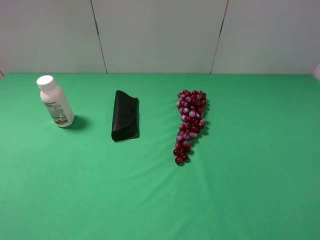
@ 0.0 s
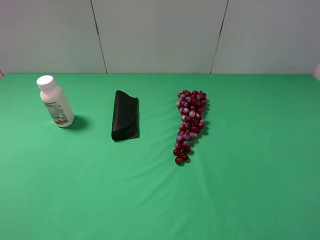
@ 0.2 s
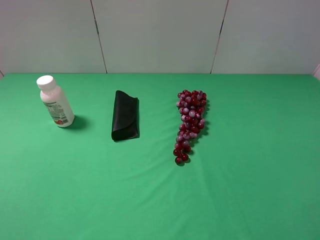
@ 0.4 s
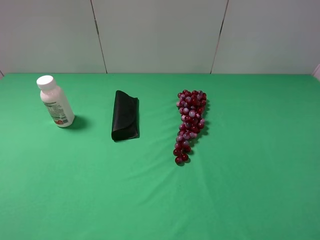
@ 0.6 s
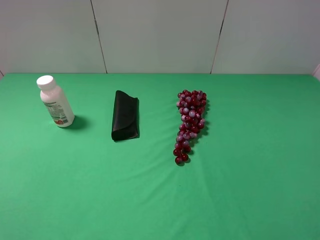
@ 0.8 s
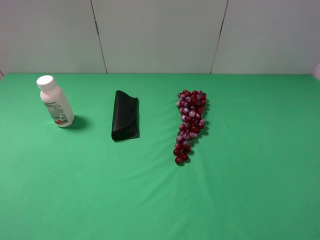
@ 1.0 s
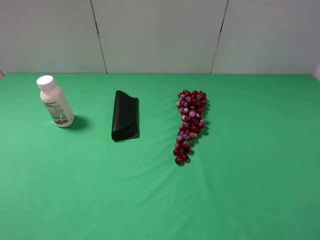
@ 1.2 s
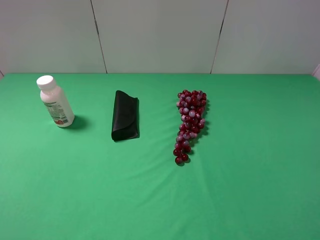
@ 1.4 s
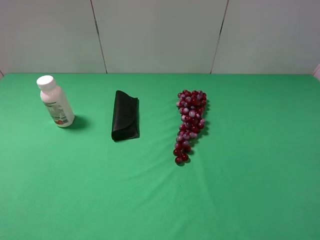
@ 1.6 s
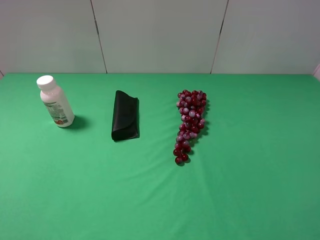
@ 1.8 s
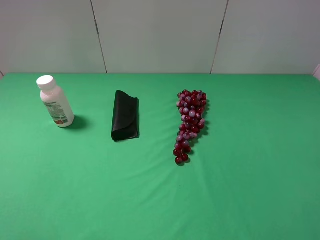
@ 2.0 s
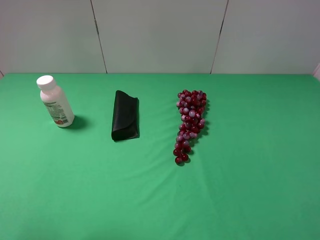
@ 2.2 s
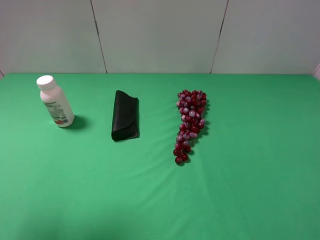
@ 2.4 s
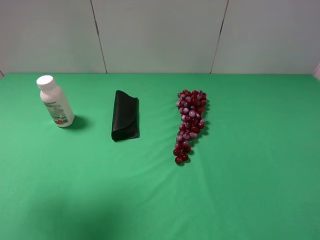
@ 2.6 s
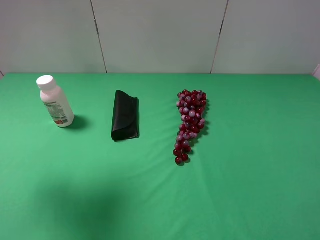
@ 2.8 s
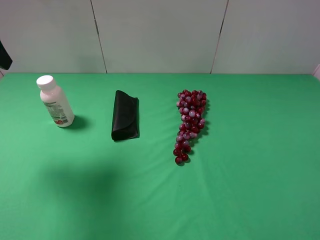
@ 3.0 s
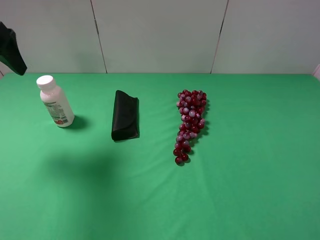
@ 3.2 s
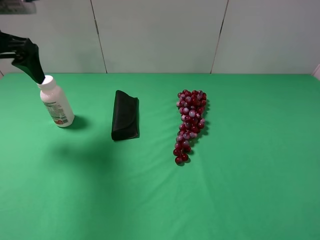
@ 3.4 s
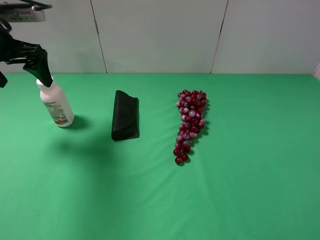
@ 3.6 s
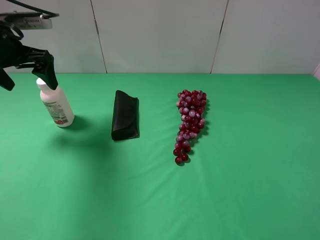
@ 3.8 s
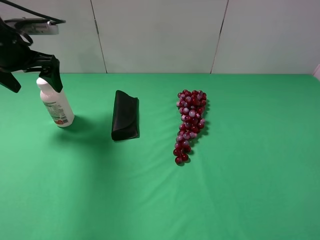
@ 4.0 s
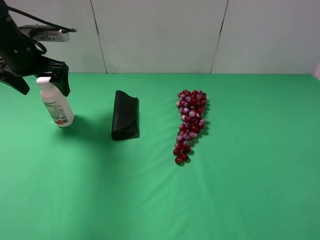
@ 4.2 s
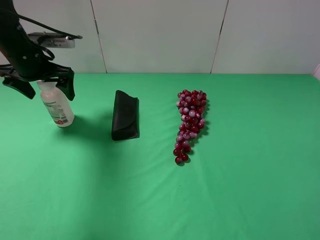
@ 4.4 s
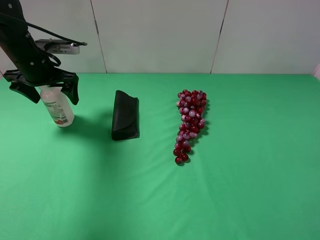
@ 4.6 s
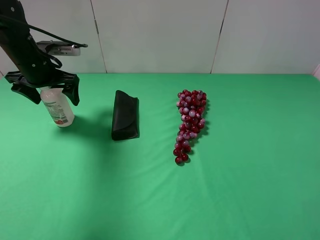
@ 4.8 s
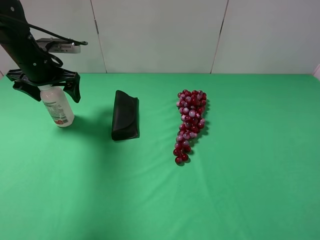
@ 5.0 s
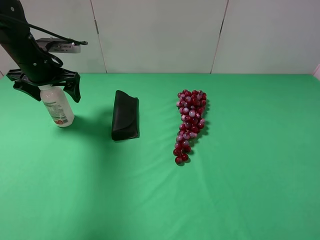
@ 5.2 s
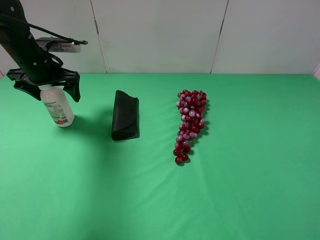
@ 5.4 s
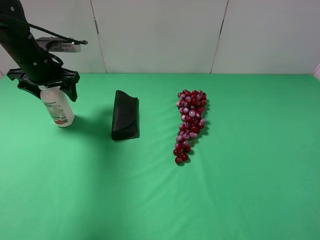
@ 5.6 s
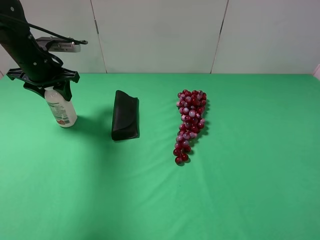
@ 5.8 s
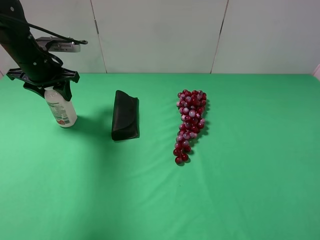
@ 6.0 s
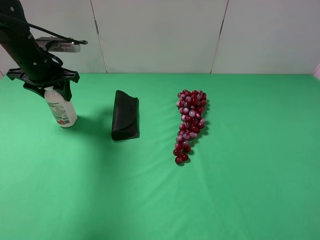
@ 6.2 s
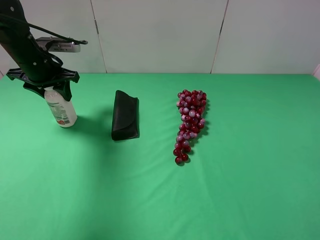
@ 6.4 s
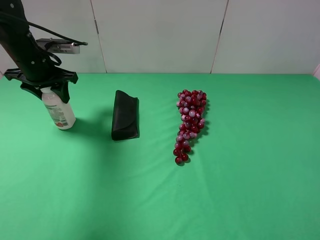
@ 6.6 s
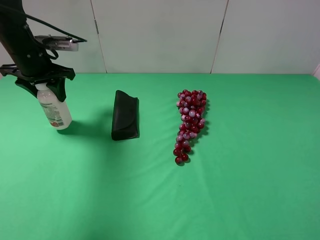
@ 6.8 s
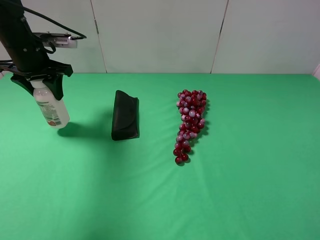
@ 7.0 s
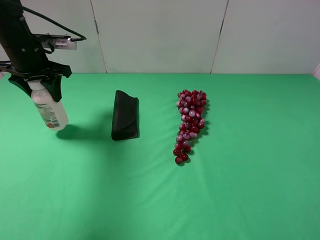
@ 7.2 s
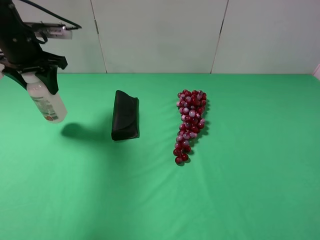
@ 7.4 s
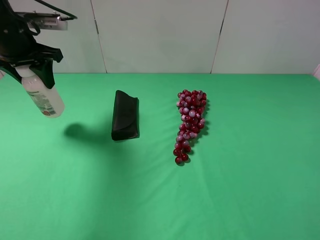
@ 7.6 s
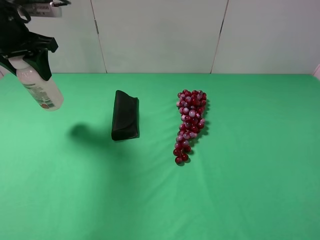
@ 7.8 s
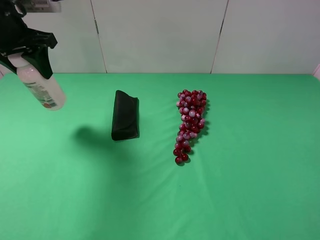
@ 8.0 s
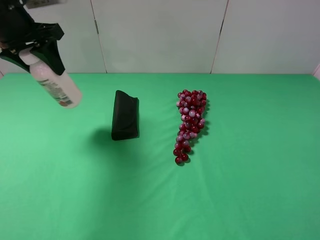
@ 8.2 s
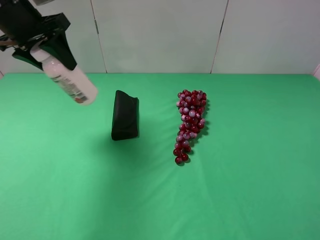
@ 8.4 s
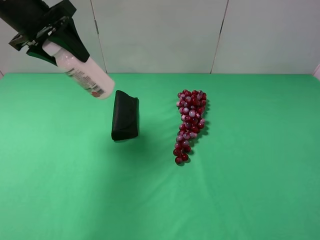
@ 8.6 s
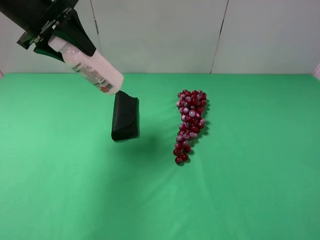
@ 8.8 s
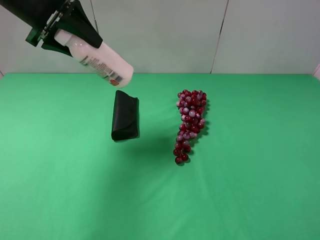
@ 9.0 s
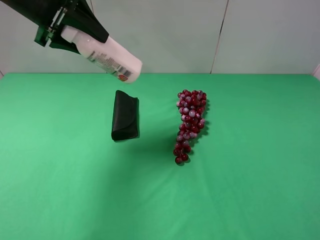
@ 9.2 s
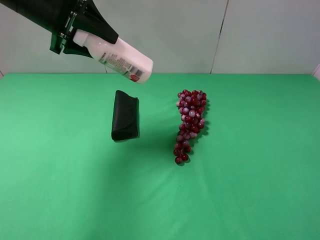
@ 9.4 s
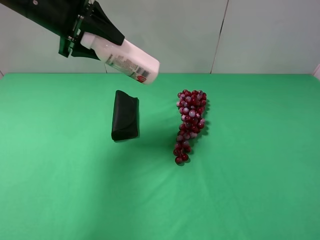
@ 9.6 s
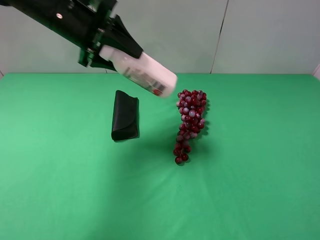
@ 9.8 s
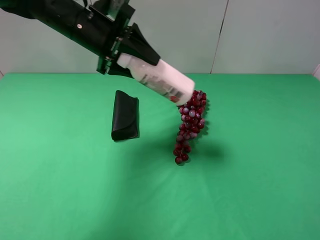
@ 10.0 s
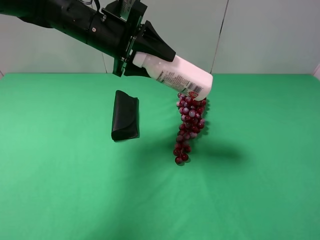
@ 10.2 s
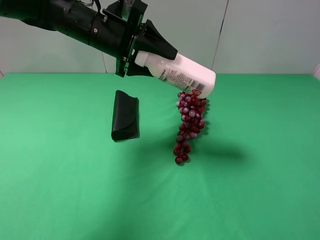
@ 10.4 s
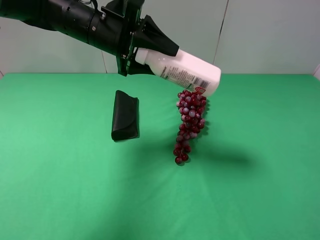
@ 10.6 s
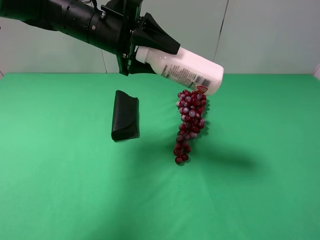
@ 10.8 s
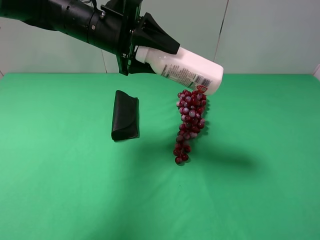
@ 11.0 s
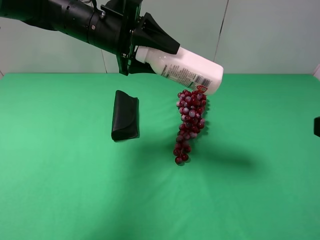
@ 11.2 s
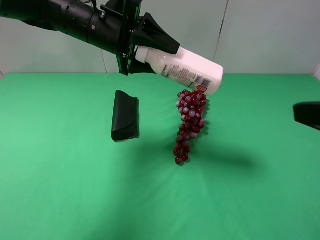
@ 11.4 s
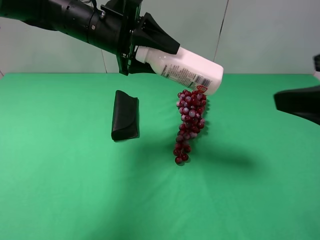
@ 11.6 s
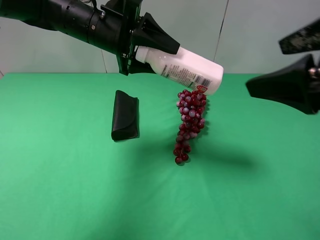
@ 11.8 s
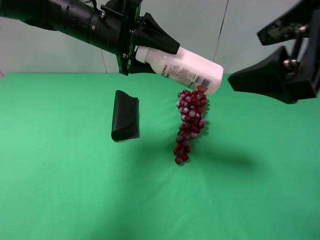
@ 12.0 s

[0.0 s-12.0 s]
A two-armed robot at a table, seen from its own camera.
Task of the whole recording: use the left gripper to pick up the item and transfer it from the left gripper to the right gripper.
Step, 0.0 to 5.6 s: Use the left gripper to grab the milk on the left side of the table.
0.0 to 1.6 s: Both grippers stay put.
1.6 to 3.0 s: The left gripper shifts about 25 cm forward.
3.0 to 4.4 s: The left gripper heads downward and forward, covering some 15 cm.
4.4 to 6.0 s: The left gripper closes.
6.0 to 7.6 s: The left gripper is displaced upward by about 5 cm.
7.6 to 9.0 s: The left gripper goes some 5 cm to the right and upward.
9.0 to 10.4 s: The left gripper is displaced to the right and downward by some 15 cm.
10.4 to 12.0 s: The right gripper moves forward, to the left and upward, about 20 cm.

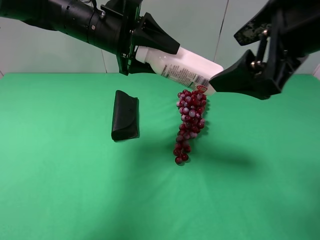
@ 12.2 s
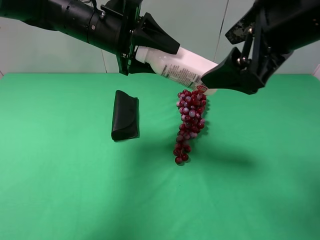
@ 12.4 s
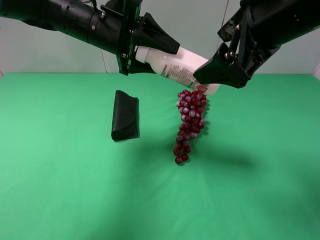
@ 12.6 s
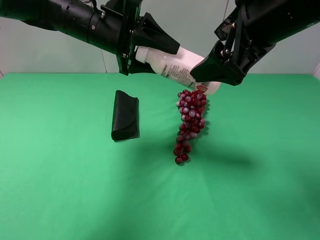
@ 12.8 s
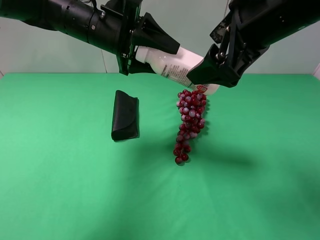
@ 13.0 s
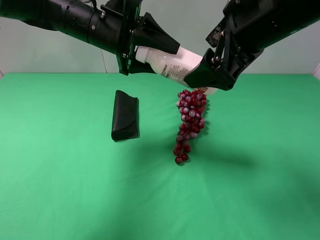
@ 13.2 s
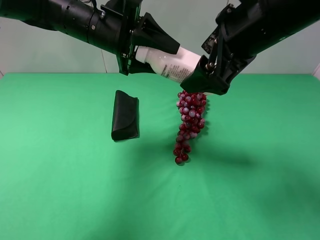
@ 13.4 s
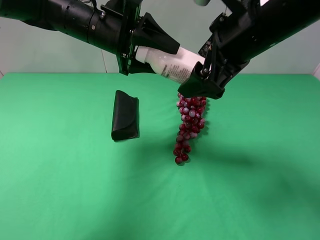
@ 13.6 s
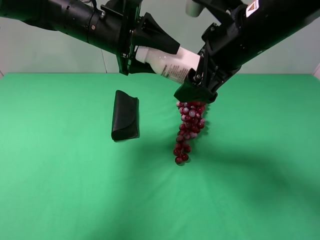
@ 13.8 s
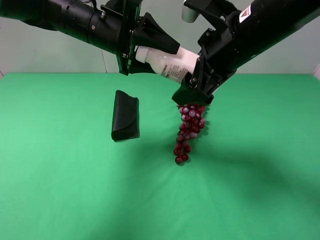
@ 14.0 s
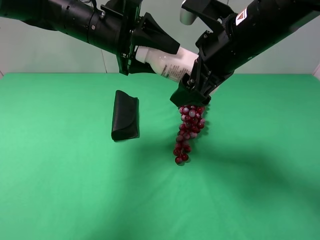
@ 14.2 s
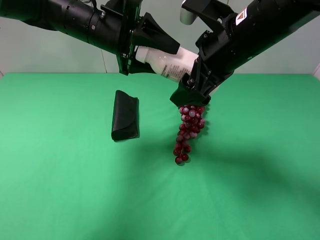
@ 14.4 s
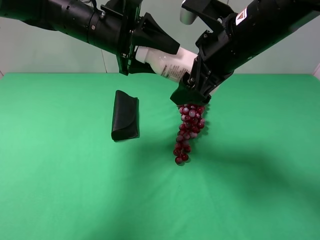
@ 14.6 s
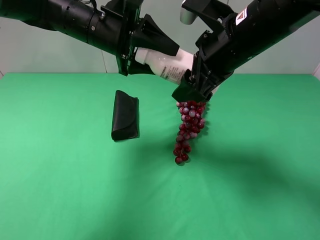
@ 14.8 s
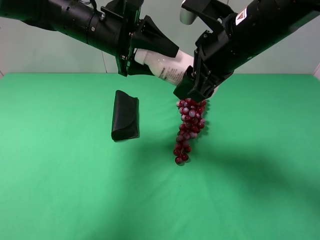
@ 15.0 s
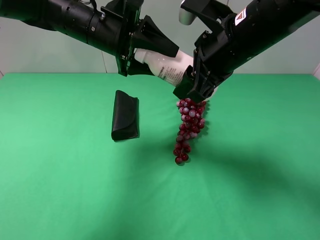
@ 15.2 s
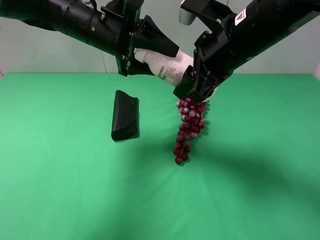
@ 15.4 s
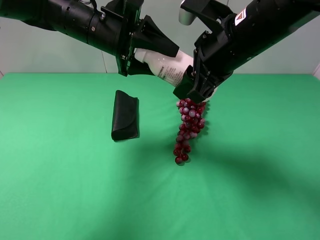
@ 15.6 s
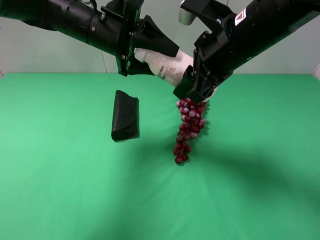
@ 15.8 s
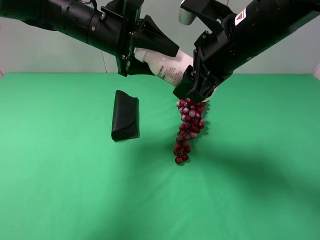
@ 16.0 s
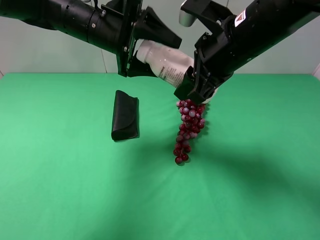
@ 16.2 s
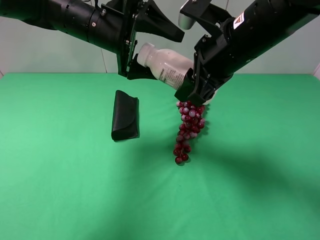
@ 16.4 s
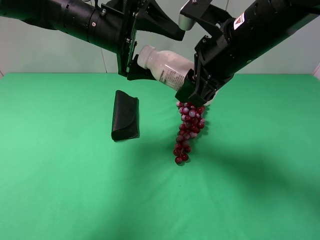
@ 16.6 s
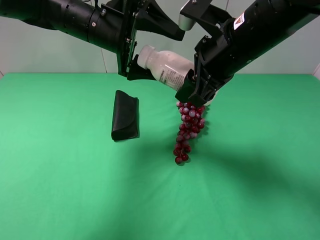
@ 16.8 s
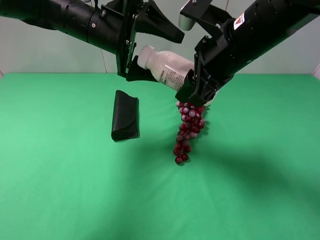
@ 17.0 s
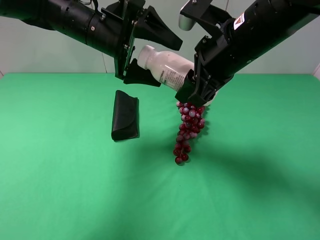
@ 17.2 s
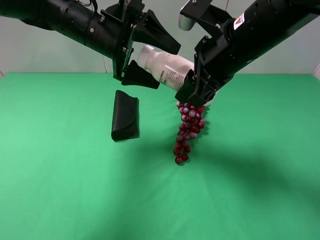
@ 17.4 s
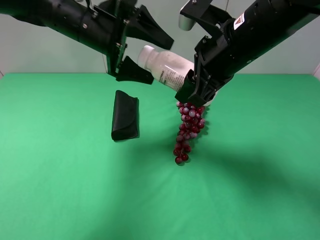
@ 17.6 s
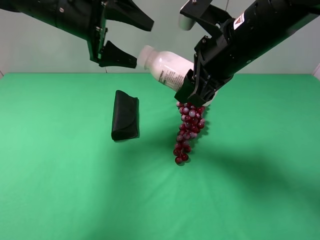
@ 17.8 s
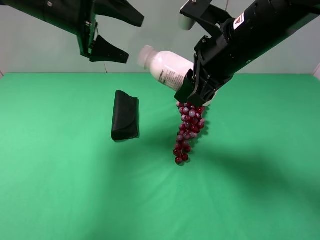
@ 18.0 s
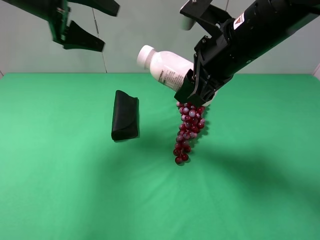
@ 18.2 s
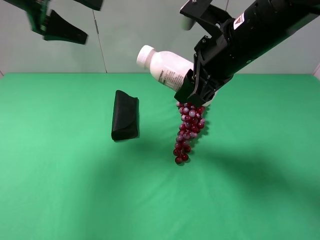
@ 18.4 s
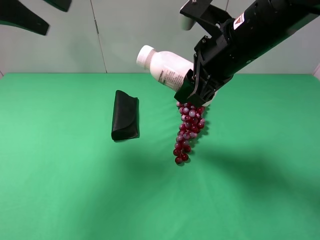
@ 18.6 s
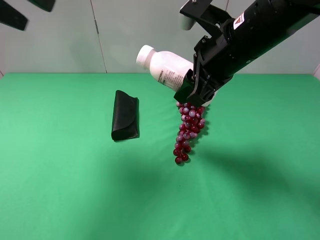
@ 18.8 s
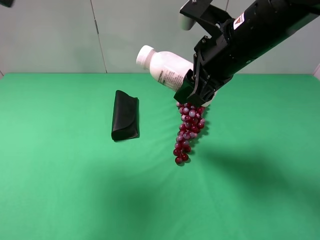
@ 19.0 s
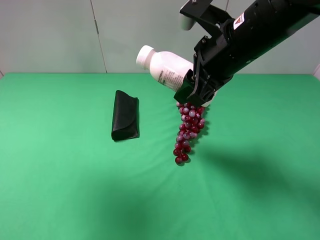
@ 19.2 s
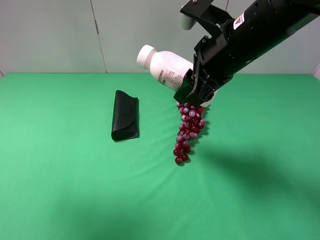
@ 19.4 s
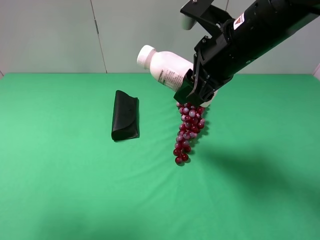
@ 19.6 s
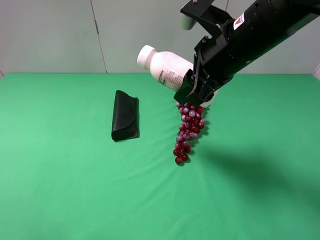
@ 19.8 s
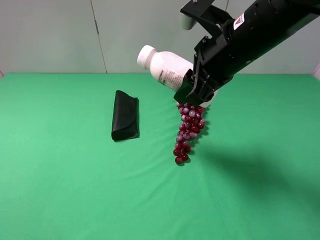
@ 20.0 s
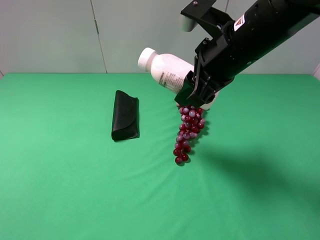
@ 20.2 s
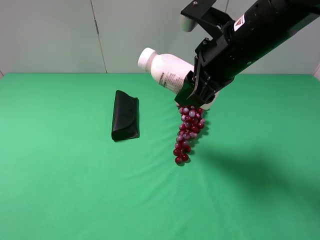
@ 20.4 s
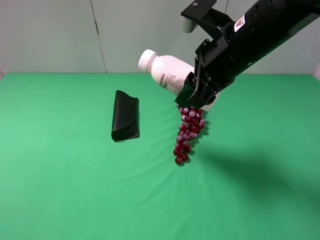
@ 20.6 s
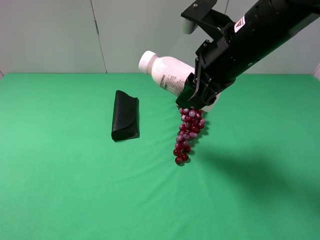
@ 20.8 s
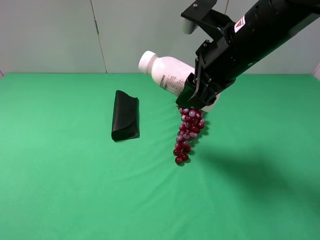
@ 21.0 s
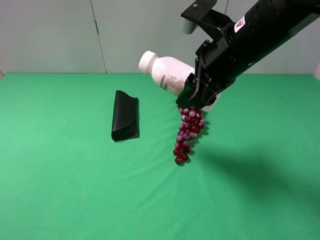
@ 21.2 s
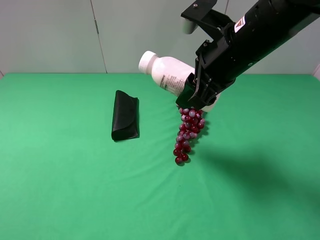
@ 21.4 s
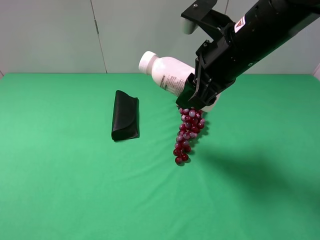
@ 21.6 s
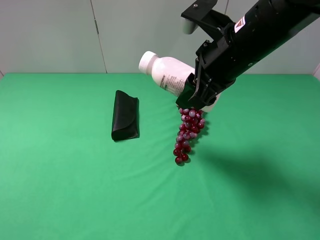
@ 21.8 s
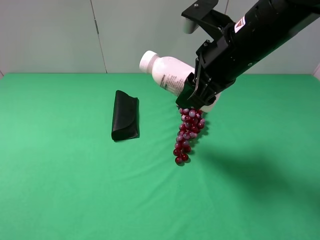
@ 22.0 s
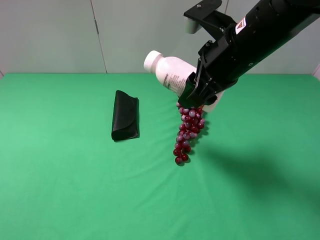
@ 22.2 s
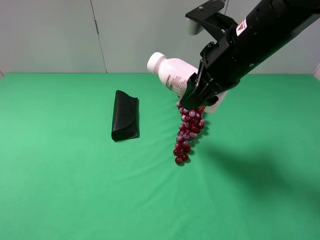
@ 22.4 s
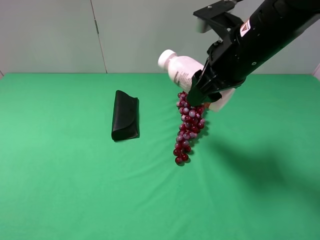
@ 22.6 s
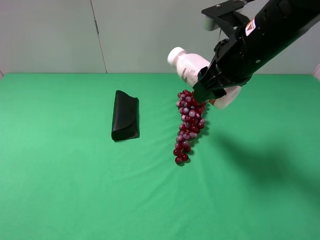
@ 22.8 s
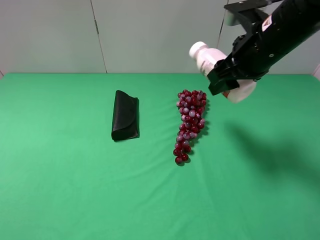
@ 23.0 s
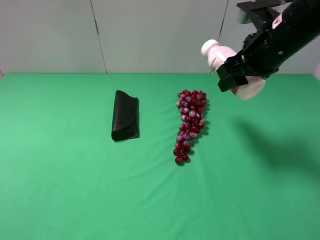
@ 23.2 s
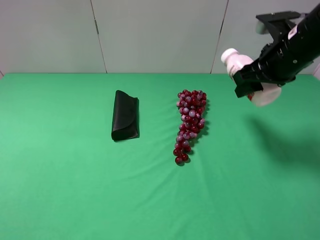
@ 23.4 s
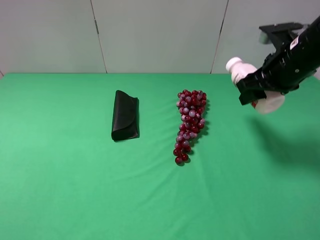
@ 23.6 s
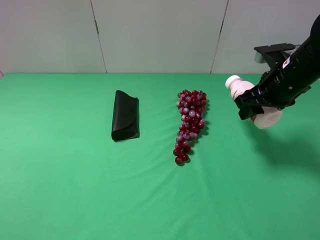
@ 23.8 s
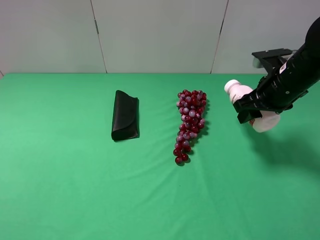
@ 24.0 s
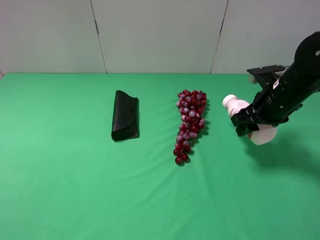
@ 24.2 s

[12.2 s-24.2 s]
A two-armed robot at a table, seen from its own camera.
Task of the whole recording: use the left gripper to pick up the item and transfer it from the left gripper to the right gripper.
Step, 12.2 to 16.4 s: Pass the milk to the right gripper.
12.2 to 13.8 s: The right gripper is displaced forward and downward by roughly 10 cm.
13.8 to 15.2 s: The right gripper closes its fingers.
15.2 to 16.6 s: The left gripper opens its fingers.
16.6 to 18.2 s: The left gripper goes approximately 10 cm to the left and upward.
18.2 to 19.8 s: The left gripper heads backward, covering some 30 cm.
19.8 to 21.2 s: The left gripper travels downward and backward by roughly 10 cm.
21.2 to 22.6 s: There are only small adjustments of the grippers.
22.6 to 24.2 s: The right gripper goes approximately 15 cm to the right and downward.
